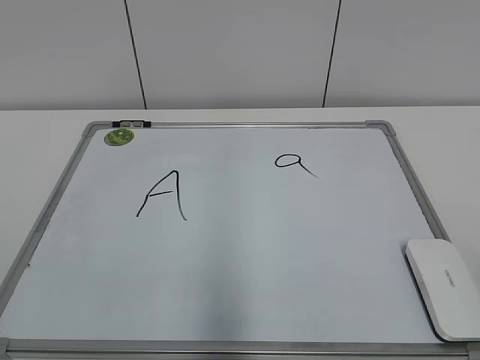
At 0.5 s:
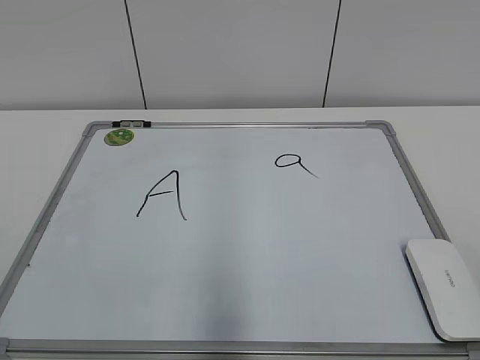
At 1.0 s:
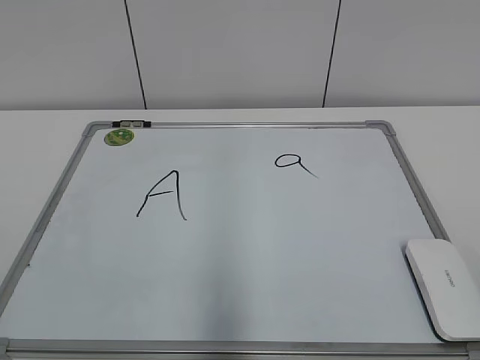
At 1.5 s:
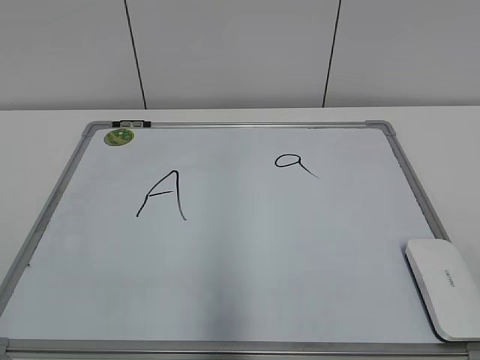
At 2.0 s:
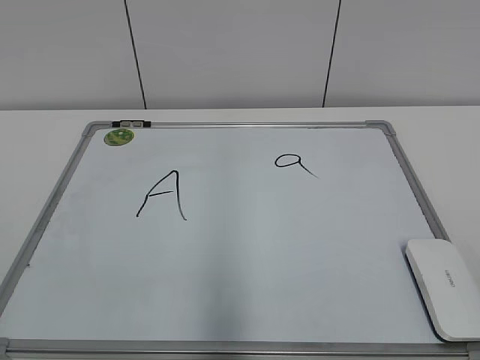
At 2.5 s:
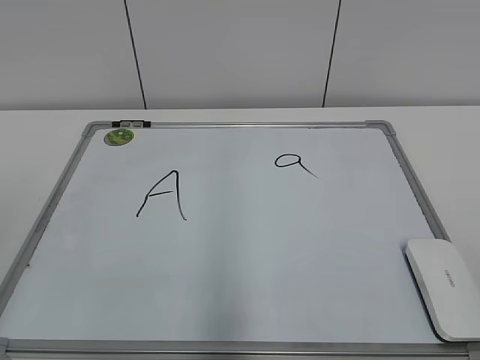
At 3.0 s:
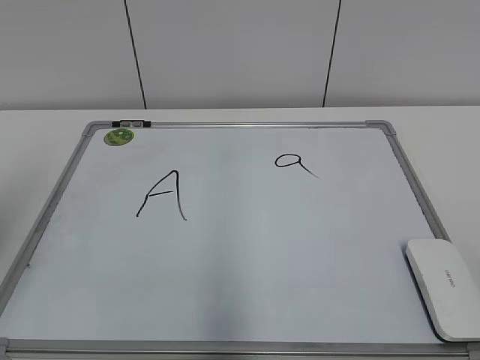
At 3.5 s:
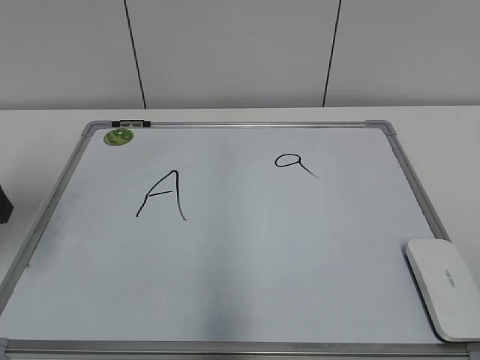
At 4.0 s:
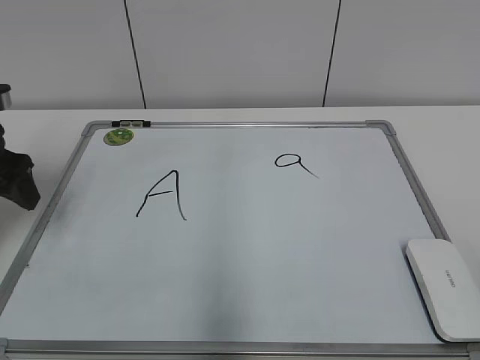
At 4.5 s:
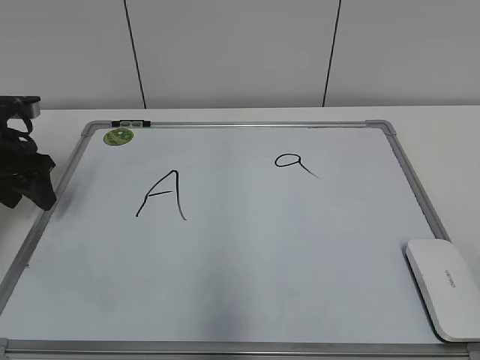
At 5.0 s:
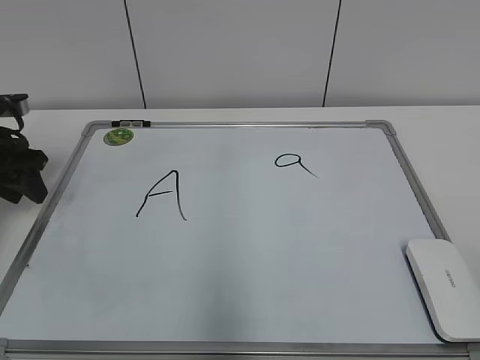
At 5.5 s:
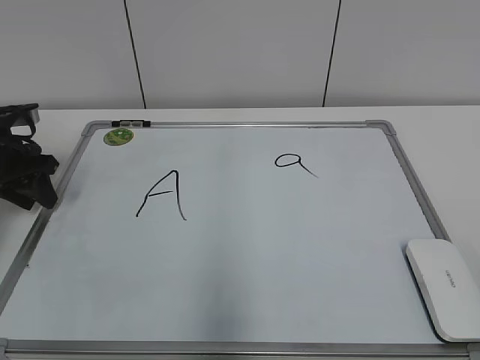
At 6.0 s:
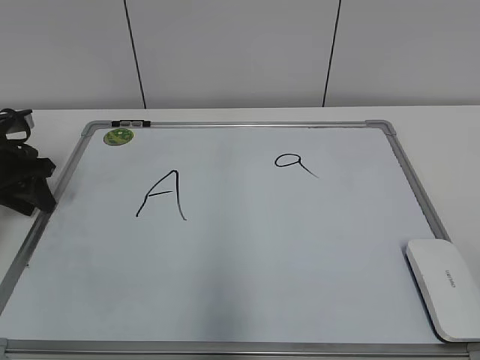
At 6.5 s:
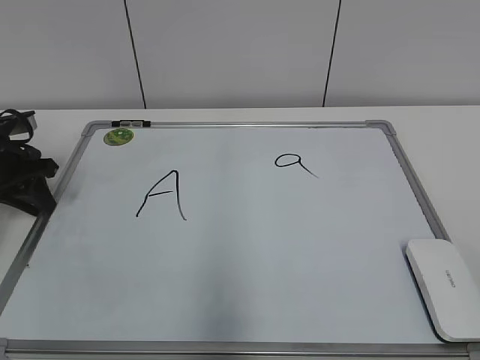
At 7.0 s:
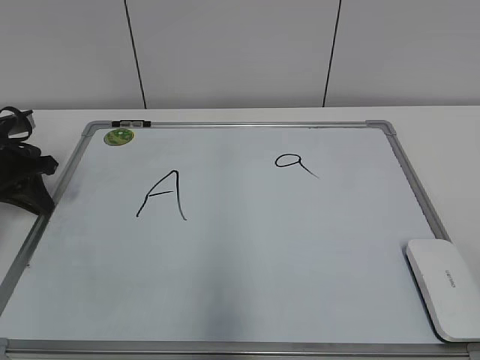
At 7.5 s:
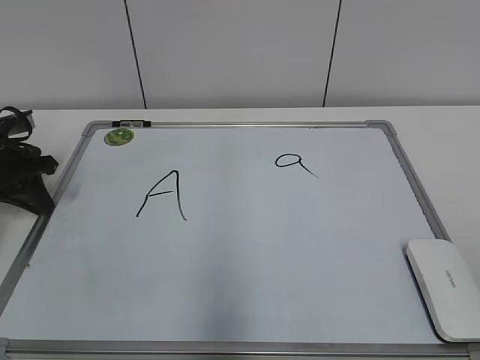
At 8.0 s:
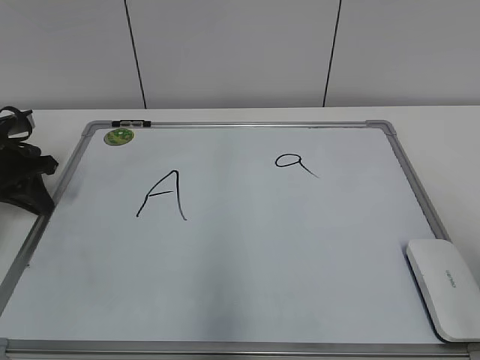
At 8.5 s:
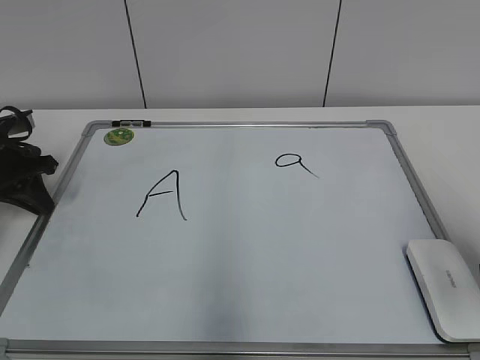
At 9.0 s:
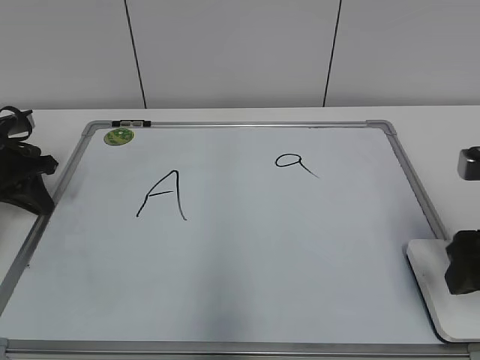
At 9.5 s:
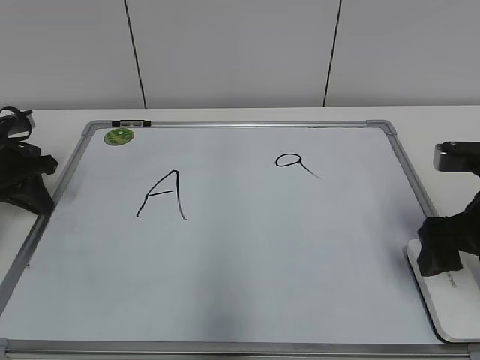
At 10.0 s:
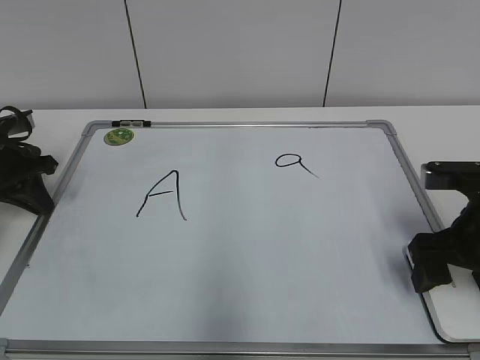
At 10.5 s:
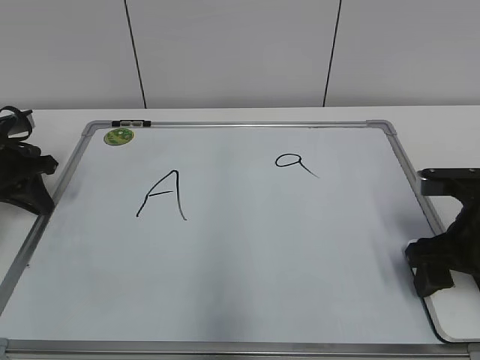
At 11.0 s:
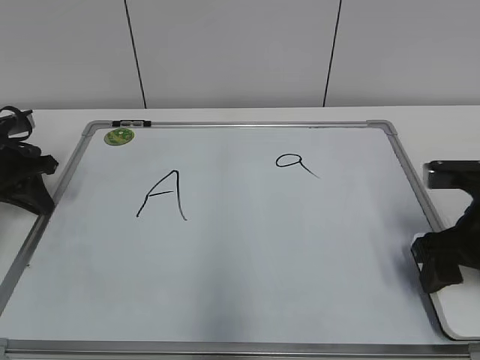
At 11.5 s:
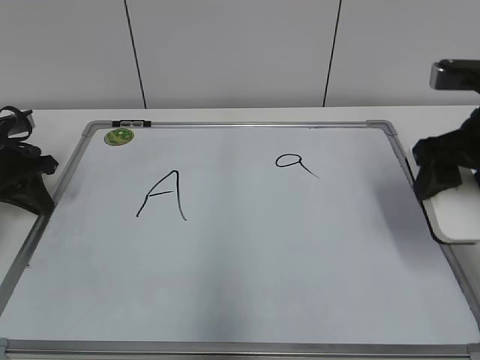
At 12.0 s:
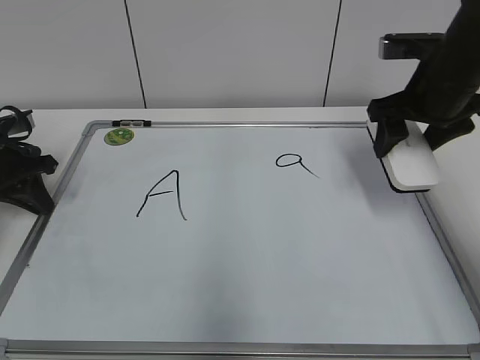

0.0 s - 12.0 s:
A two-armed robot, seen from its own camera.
Task of the whole recording: pick up the eraser on the blackboard and erase the letter "a".
Step, 0.0 s - 6.5 s: Hold the drawing board steady with your left hand.
Step, 7.0 s - 10.5 s: Grab the eraser with your right hand.
2.0 s - 4.0 s: The left gripper travels forward by about 35 cm.
4.0 s - 6.0 s: The left gripper travels downward and forward by about 10 cm, and closes its fingers.
8.0 s - 10.0 s: The right gripper travels forward and downward by some 20 cm, and opens its fingers.
10.0 s - 12.0 s: The right gripper shifts some 15 cm forward and upward, and closes.

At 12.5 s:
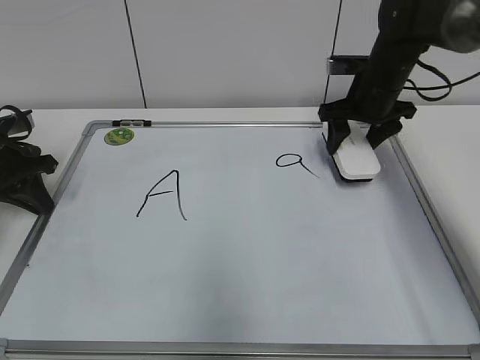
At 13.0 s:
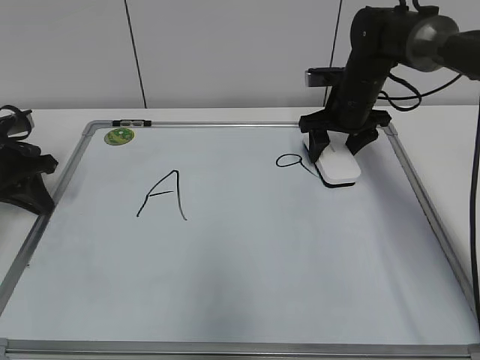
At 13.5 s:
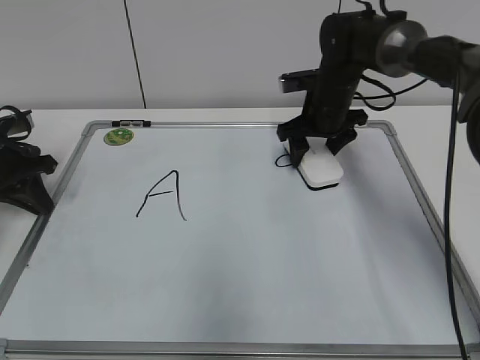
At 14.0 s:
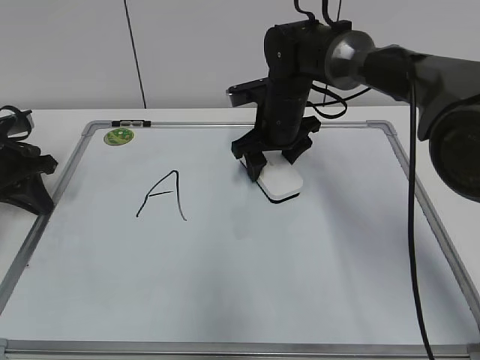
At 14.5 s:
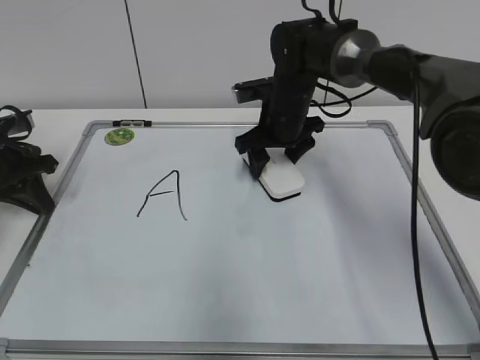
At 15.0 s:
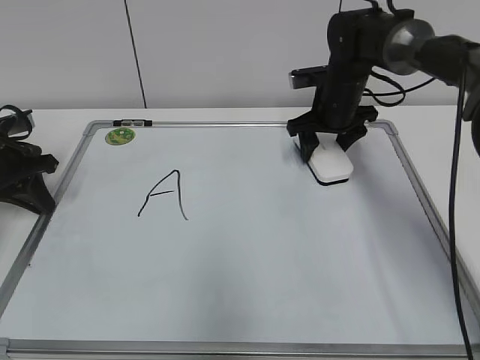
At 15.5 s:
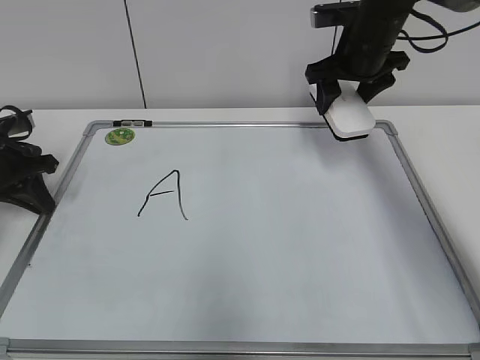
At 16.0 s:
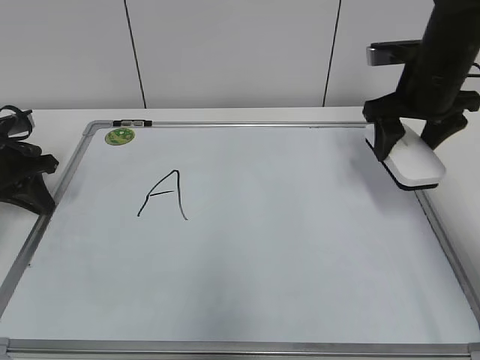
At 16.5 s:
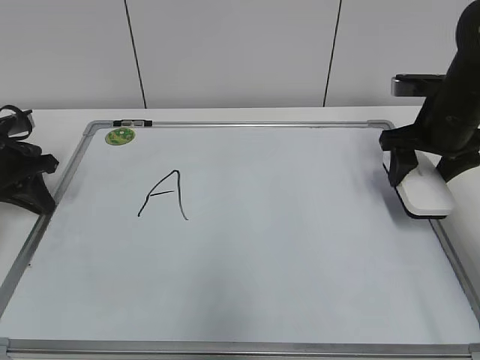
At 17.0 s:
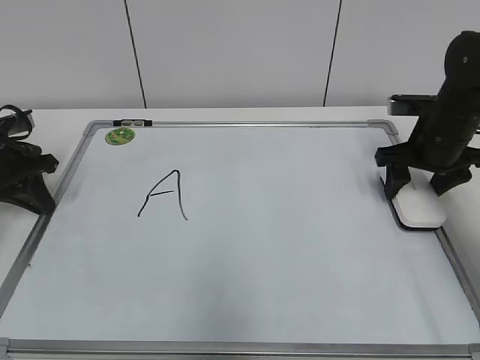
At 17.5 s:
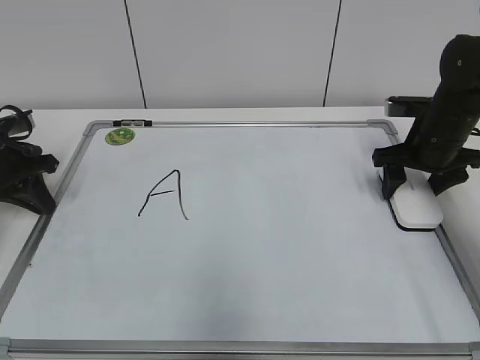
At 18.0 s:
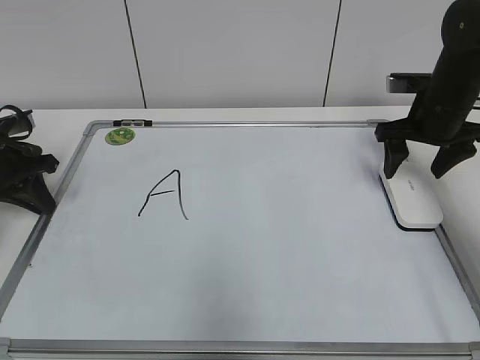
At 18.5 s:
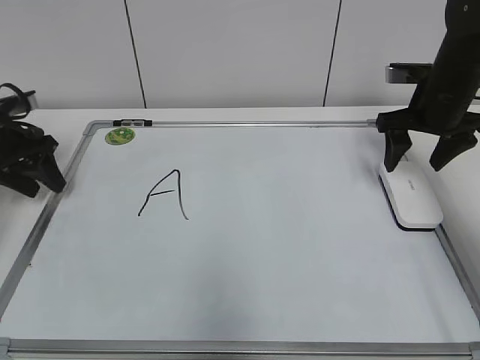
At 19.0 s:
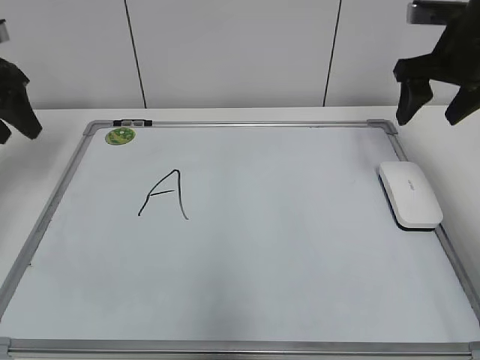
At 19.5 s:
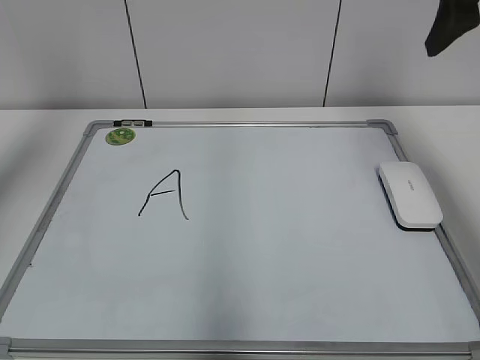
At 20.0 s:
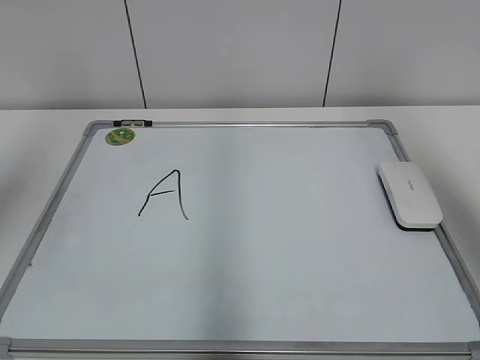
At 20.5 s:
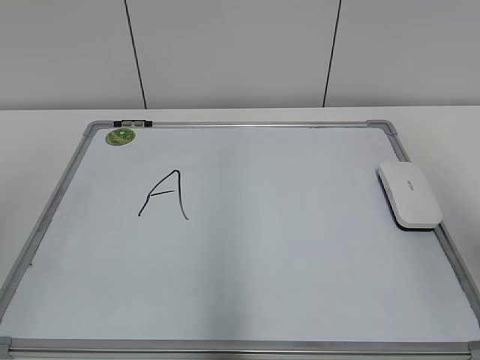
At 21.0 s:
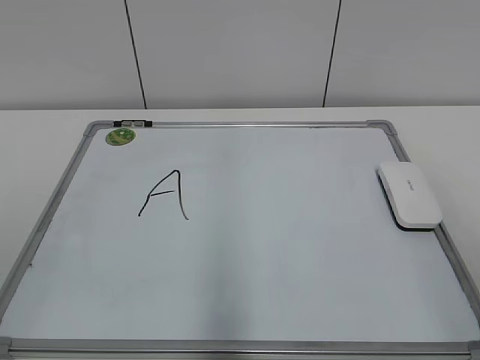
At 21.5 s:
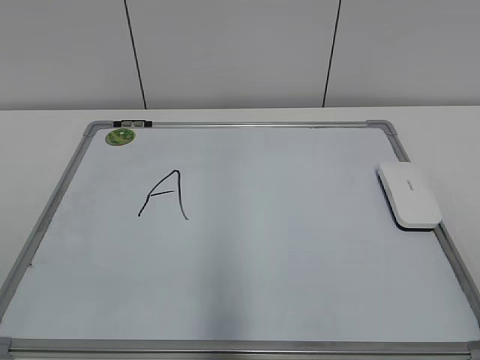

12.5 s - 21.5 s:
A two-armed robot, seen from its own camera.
Task of the whole recording: pick up the eraser on the blackboard and erase the letter "a".
Step, 12.5 s - 14.5 s: Erase the letter a with your right hand.
Step, 15.0 s - 17.5 s: Put down the eraser with your right hand.
12.5 s - 14.5 s: The right gripper moves to the left, roughly 10 cm.
14.5 s - 17.0 s: The right gripper travels to the right by roughly 20 cm.
17.0 s - 19.5 s: The grippers both shift upward by roughly 25 cm. The right gripper opens its fingers, while the left gripper opens.
19.5 s - 21.5 s: The two grippers go roughly 30 cm backward.

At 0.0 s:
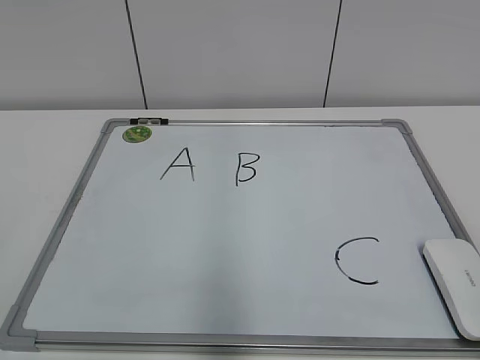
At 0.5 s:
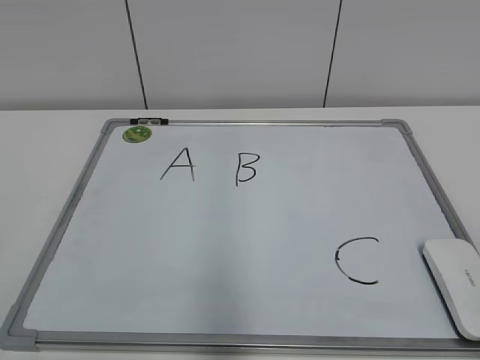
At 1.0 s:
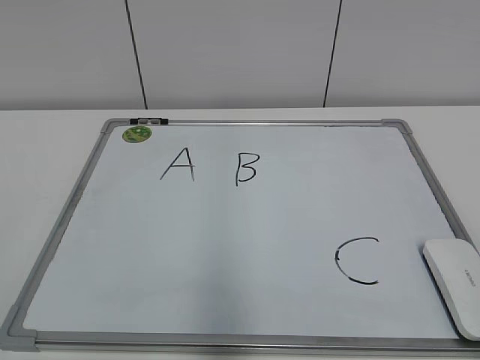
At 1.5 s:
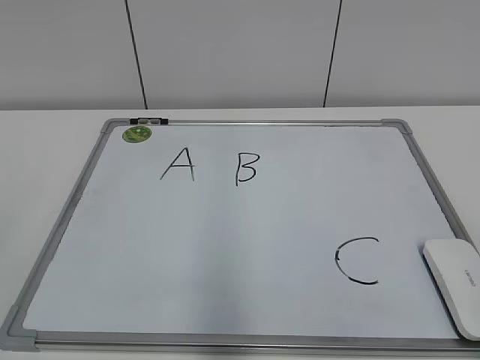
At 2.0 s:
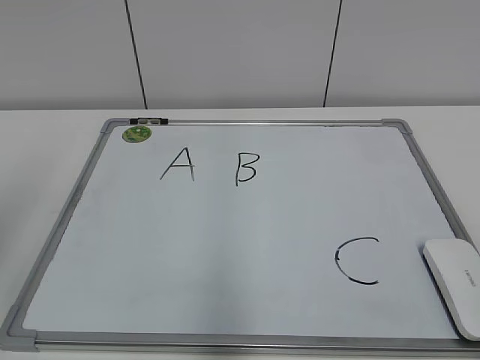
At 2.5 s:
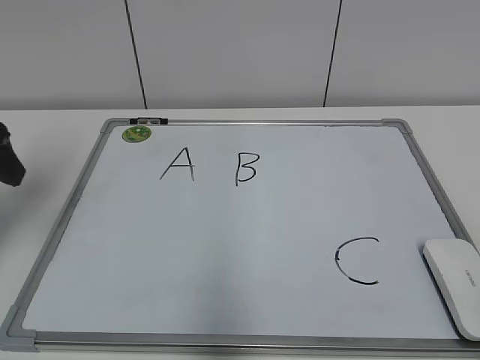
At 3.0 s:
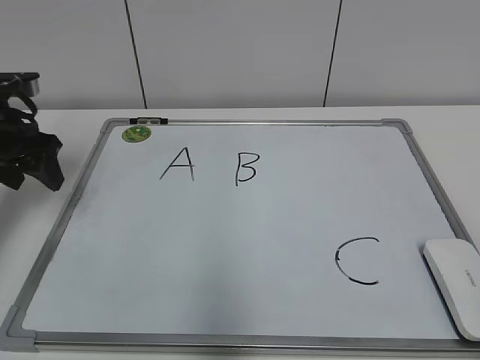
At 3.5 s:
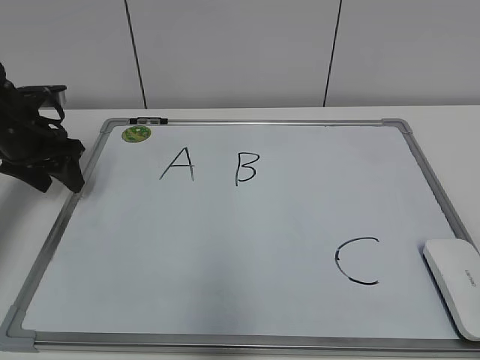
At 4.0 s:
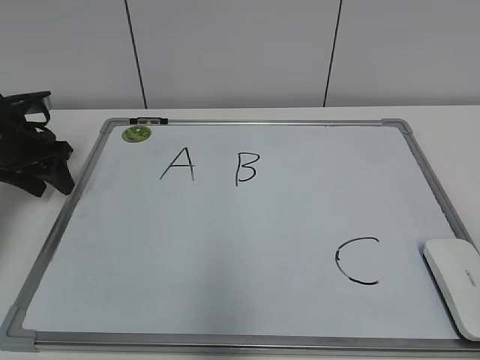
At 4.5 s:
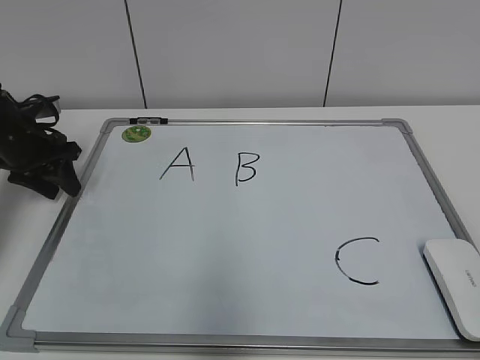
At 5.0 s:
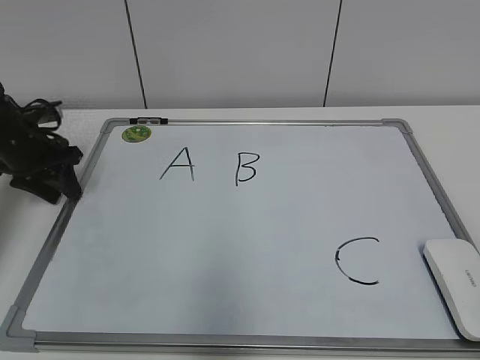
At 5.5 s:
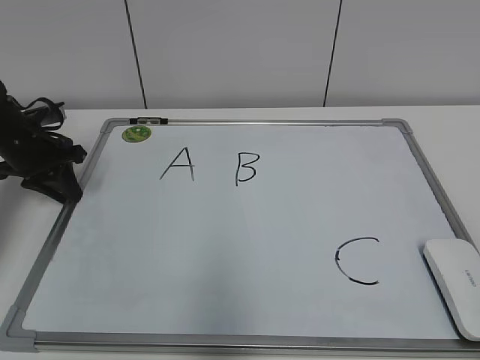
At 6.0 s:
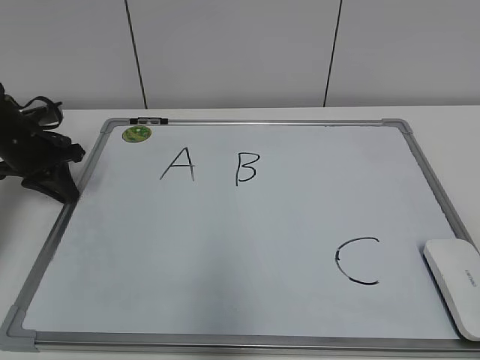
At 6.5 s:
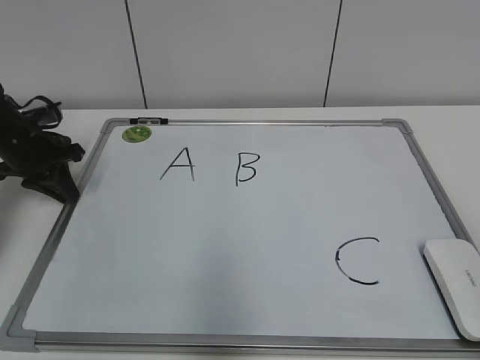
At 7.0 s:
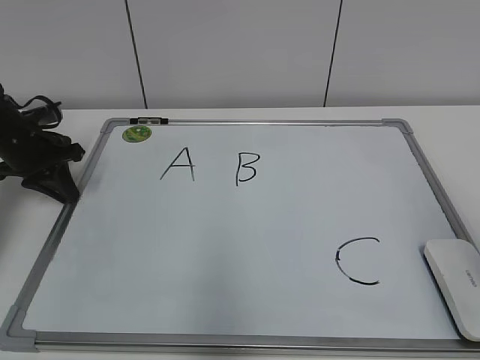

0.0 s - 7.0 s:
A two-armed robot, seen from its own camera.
Task of the whole recording: pick up the eraser on the blackboard and erase the letter "B".
Step, 0.0 s - 5.5 s: Hold the drawing board steady with your left hand.
2.0 s - 3.5 s: The left gripper is displaced forward and downward by approximately 30 cm.
3.5 s - 5.0 s: The grippers move only a little.
5.0 s - 7.0 s: The left gripper closes up.
